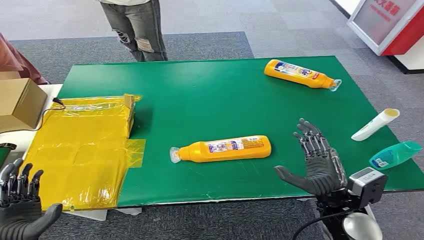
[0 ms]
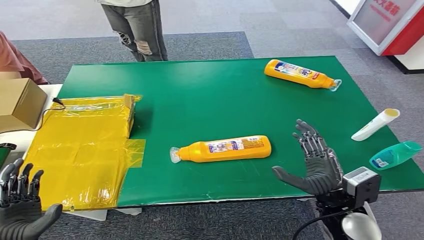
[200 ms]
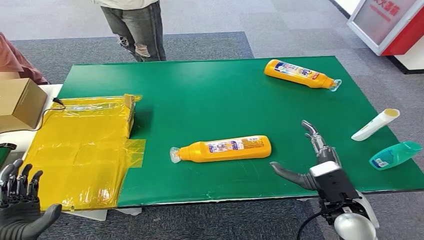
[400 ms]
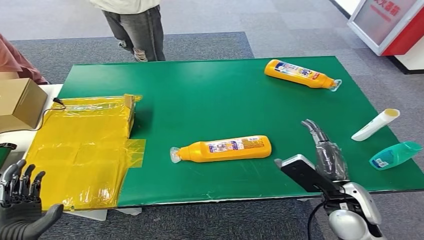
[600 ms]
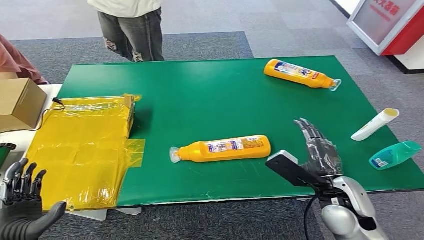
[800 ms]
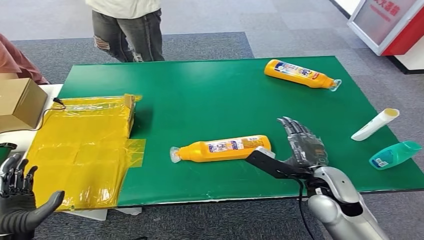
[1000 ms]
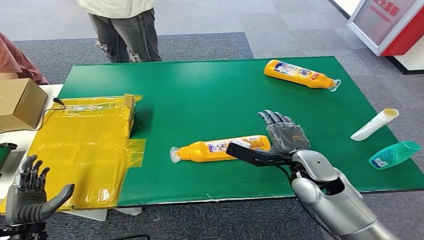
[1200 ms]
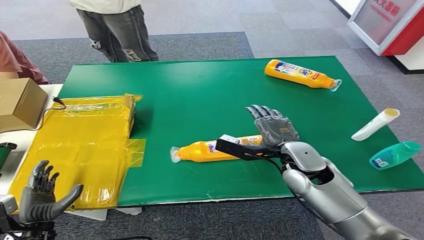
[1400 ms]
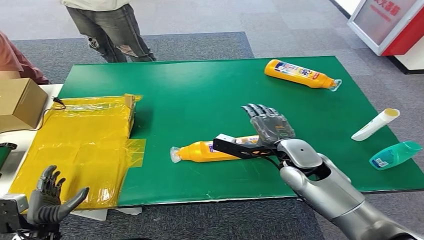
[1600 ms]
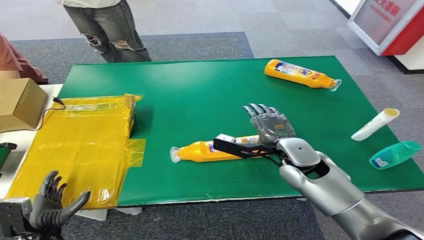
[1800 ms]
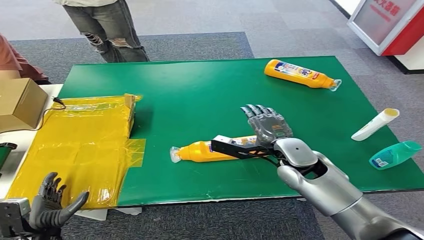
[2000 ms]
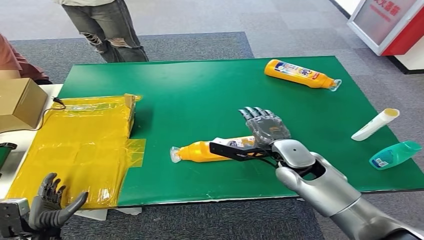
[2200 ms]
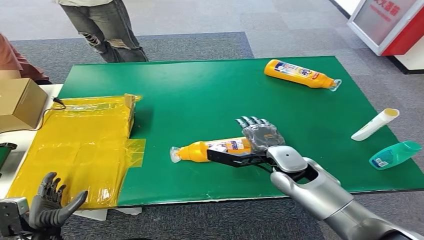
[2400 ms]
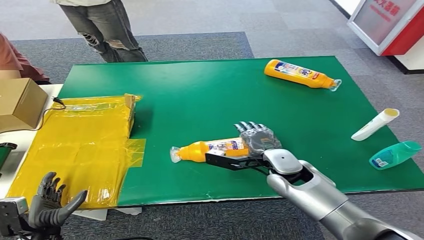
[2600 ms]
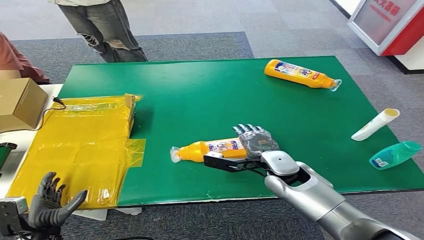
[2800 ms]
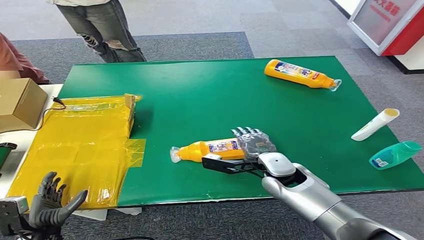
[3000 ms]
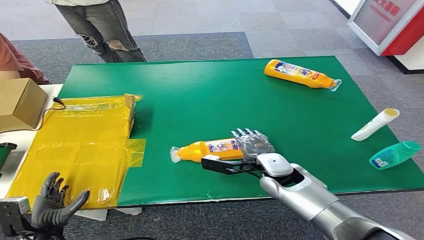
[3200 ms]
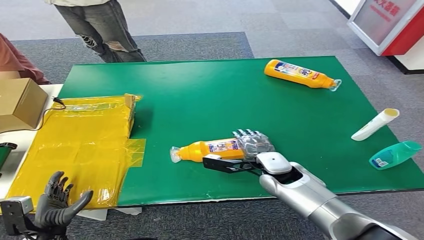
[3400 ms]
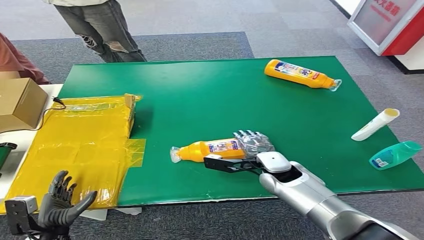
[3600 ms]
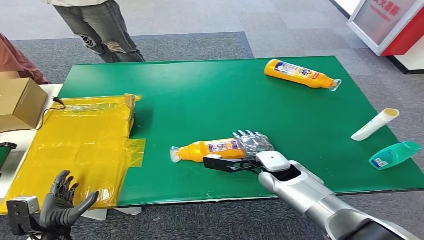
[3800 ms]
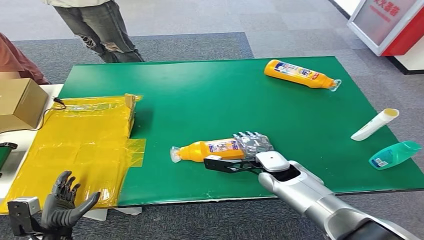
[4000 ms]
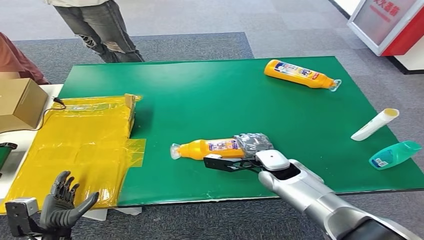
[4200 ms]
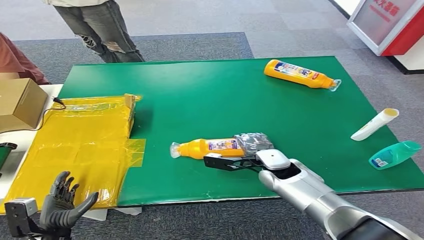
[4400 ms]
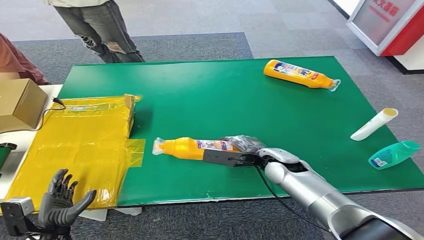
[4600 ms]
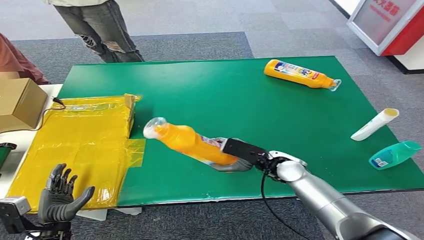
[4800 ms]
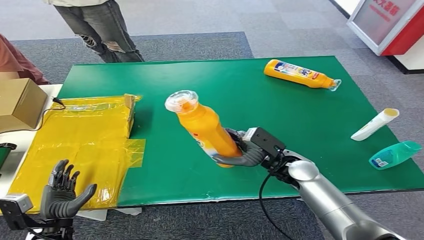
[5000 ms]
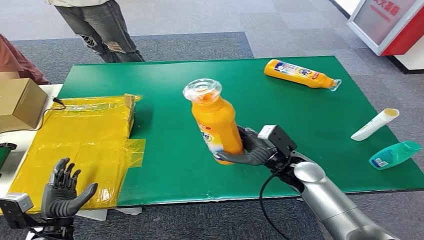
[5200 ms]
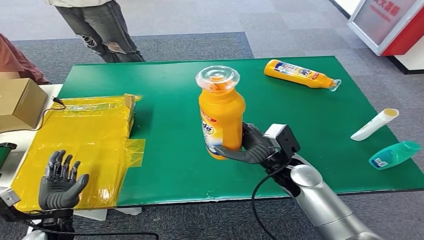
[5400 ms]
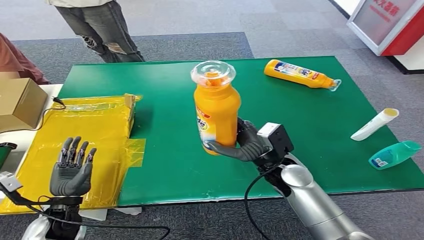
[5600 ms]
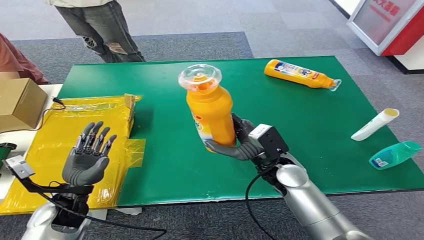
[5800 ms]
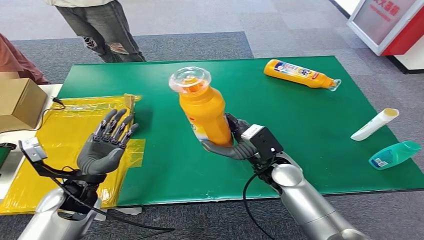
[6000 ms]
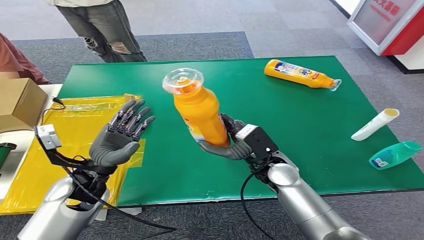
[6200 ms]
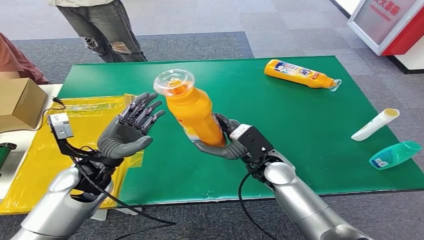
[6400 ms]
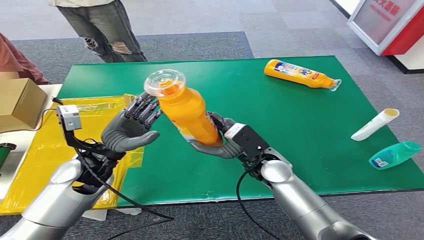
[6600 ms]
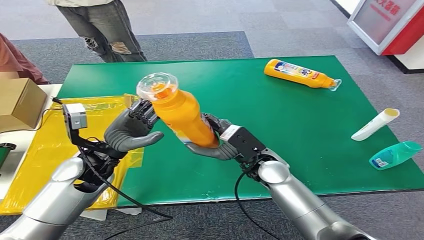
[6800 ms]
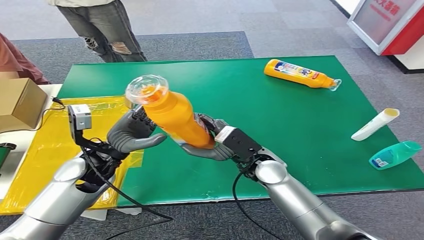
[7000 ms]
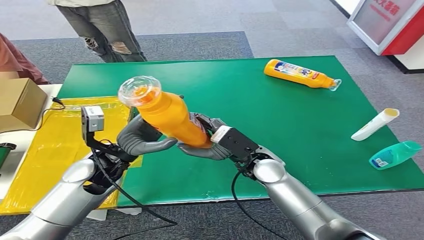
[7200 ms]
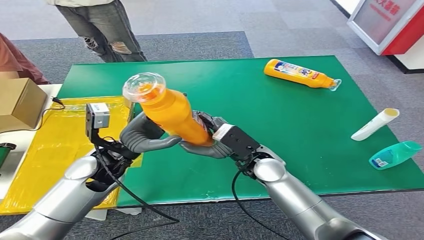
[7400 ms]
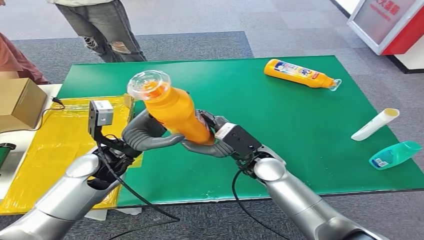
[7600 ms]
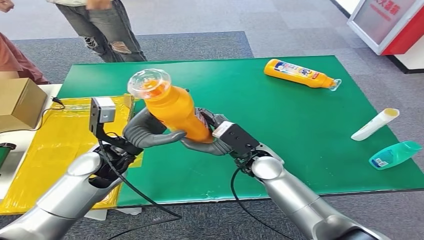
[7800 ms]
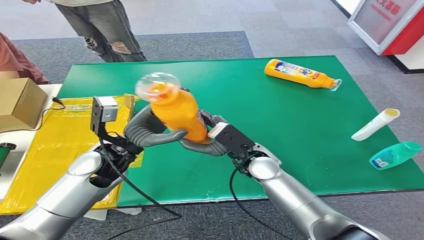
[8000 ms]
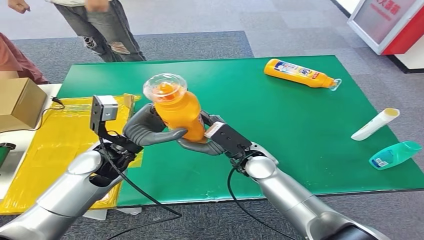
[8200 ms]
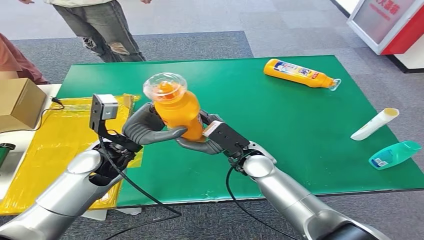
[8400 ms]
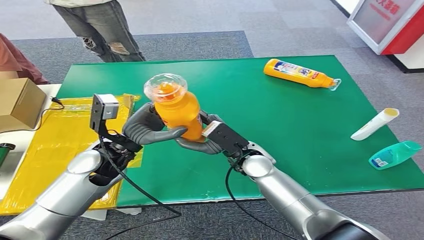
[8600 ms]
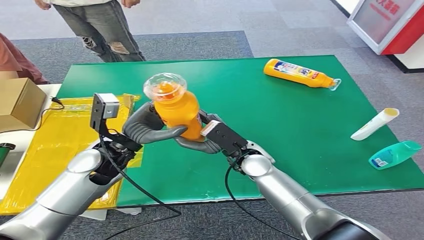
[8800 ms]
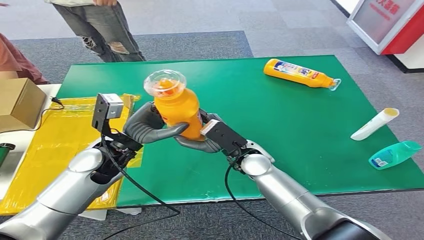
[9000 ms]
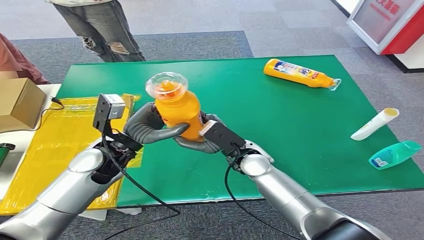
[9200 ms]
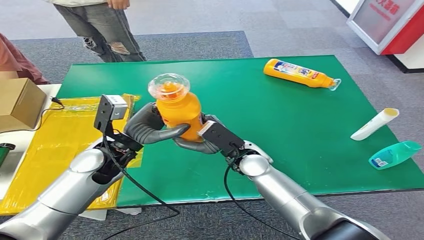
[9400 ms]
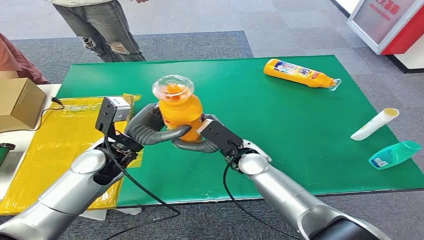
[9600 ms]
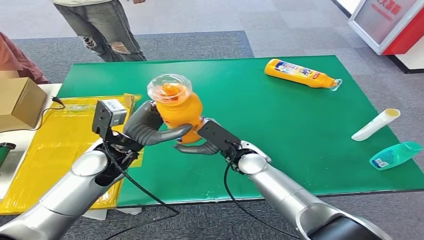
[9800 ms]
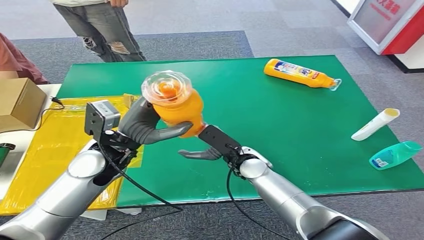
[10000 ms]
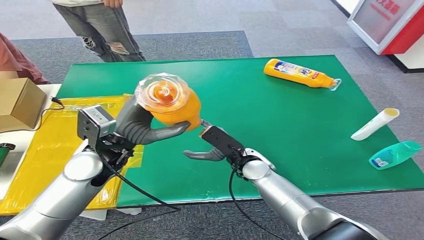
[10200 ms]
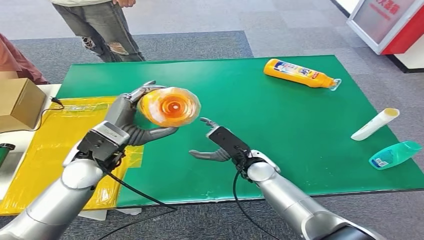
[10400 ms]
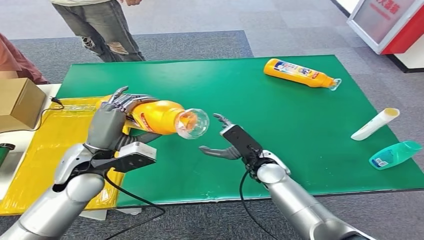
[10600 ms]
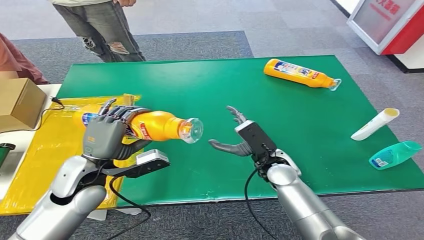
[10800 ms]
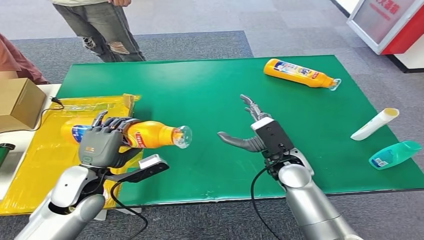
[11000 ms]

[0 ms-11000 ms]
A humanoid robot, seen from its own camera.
Step, 0 ms to 5200 ms: Pick up the bottle from the table.
1600 ms to 3200 ms: The right hand moves downward, some 5 cm.
7800 ms to 9400 ms: The hands make only small movements.

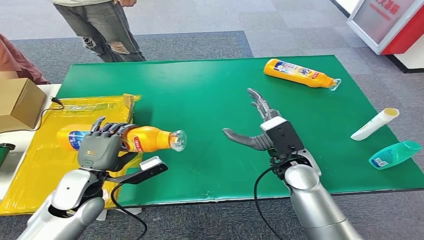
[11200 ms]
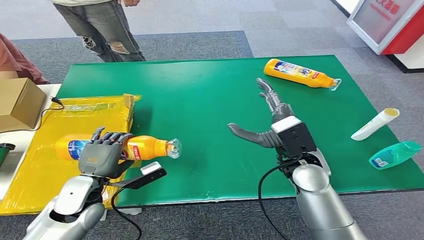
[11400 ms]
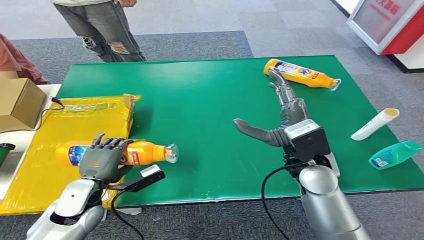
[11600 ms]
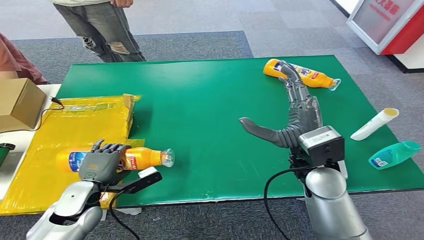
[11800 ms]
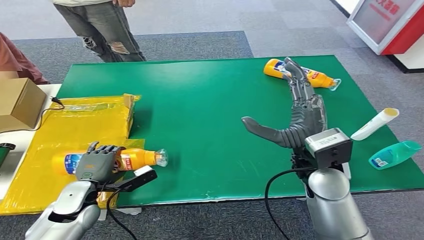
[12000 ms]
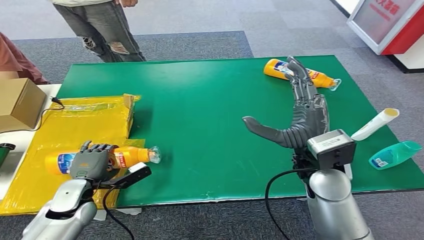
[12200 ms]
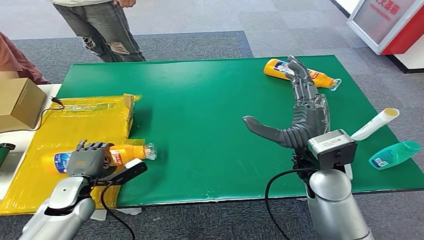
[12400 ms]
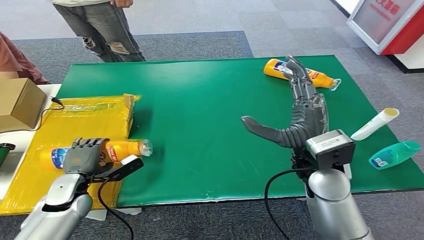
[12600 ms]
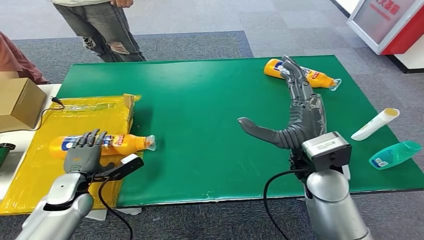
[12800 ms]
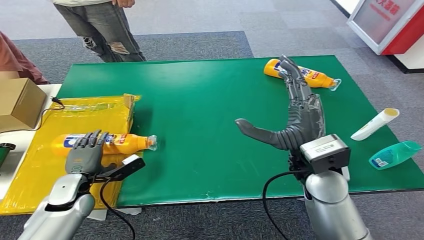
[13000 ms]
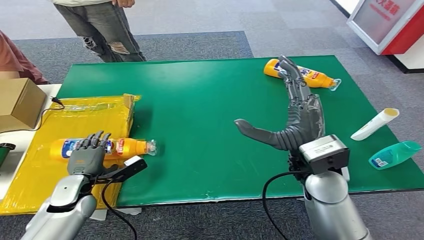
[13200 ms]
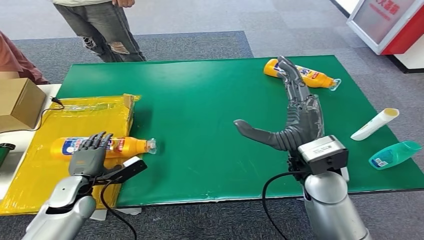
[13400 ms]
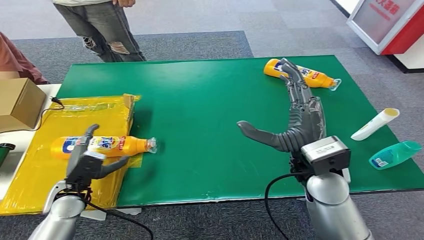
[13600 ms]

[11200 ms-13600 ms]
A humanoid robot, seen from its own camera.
Step, 11200 ms to 13600 ms: Turn the bottle to the front side.
11200 ms to 12400 ms: The right hand heads upward, covering some 10 cm, while the left hand is displaced downward and to the left by about 10 cm.
